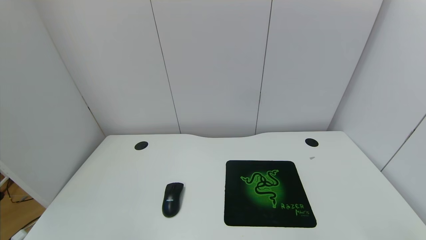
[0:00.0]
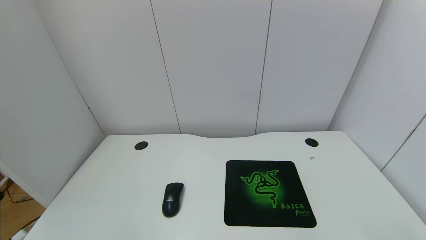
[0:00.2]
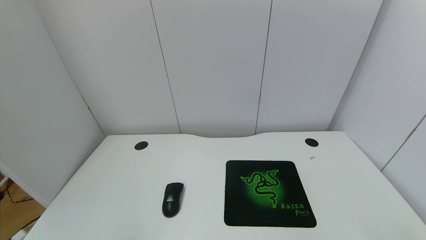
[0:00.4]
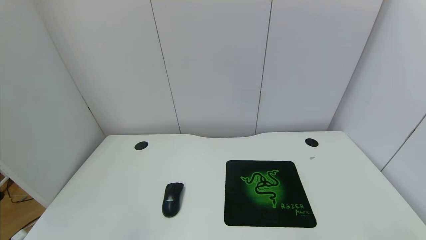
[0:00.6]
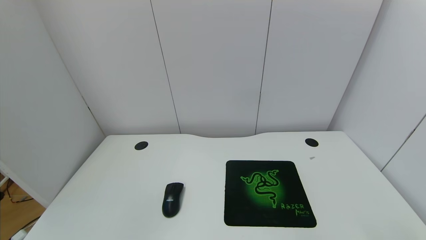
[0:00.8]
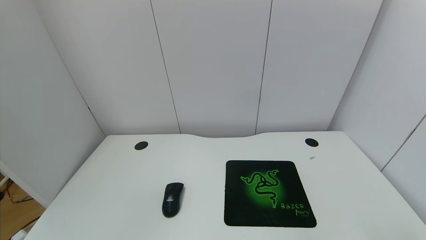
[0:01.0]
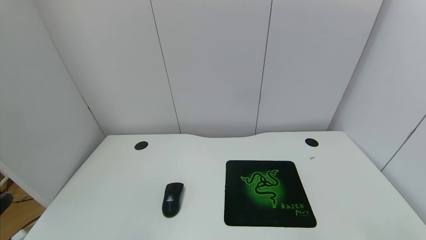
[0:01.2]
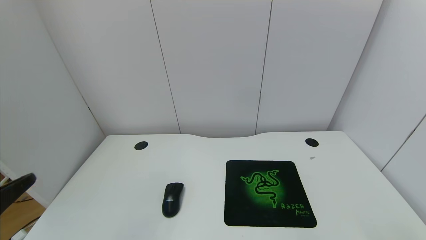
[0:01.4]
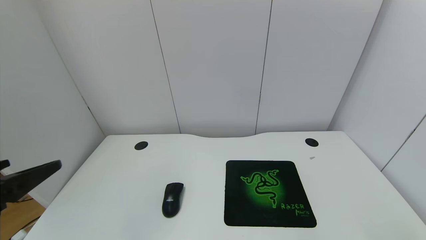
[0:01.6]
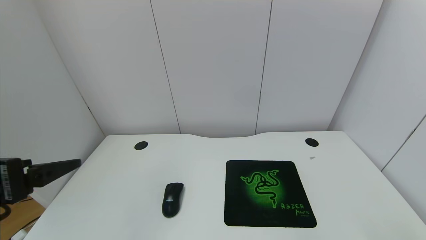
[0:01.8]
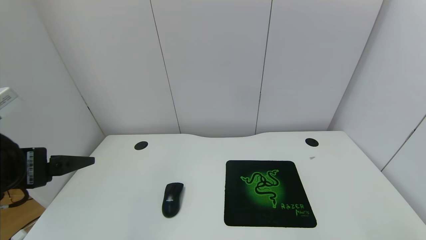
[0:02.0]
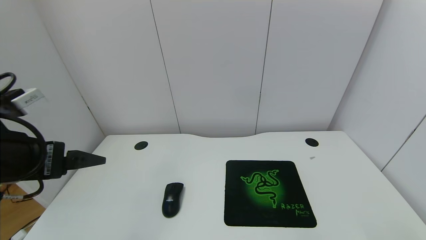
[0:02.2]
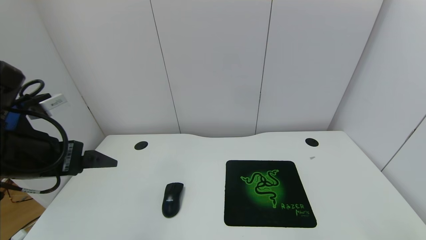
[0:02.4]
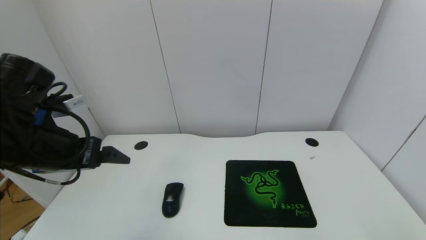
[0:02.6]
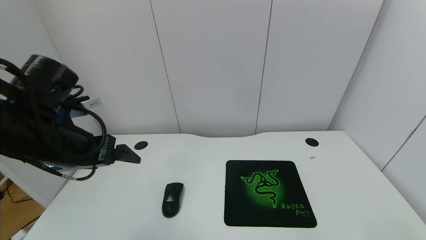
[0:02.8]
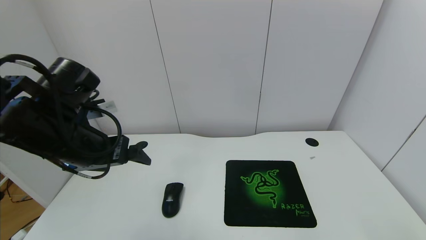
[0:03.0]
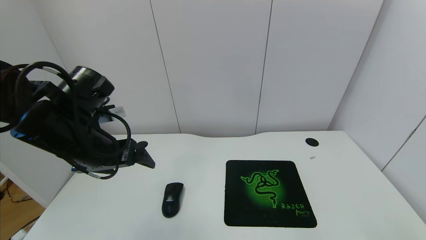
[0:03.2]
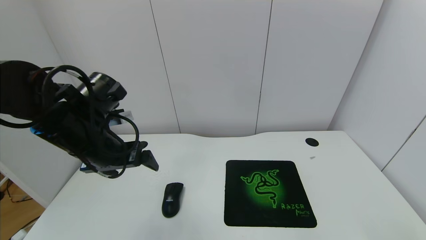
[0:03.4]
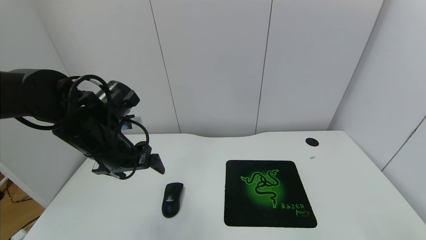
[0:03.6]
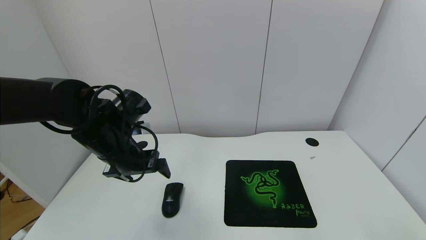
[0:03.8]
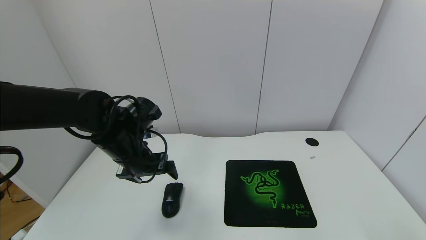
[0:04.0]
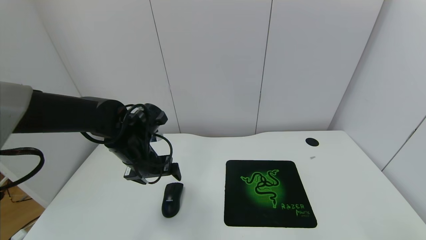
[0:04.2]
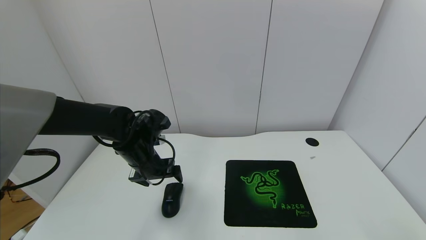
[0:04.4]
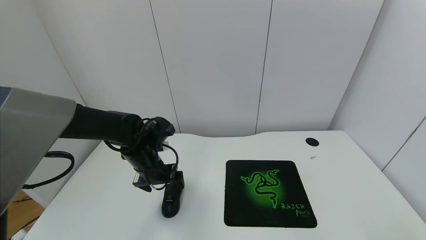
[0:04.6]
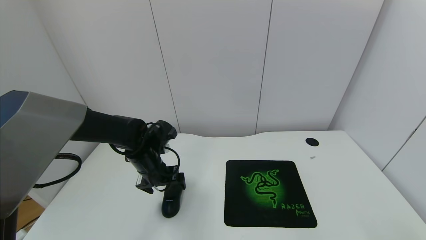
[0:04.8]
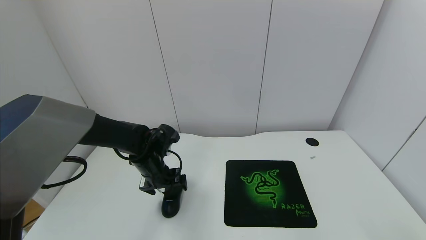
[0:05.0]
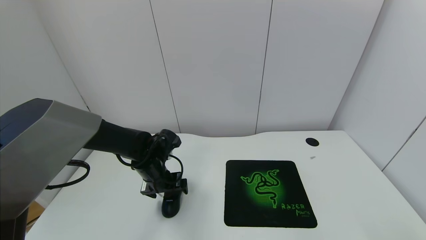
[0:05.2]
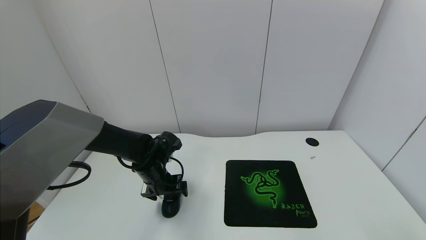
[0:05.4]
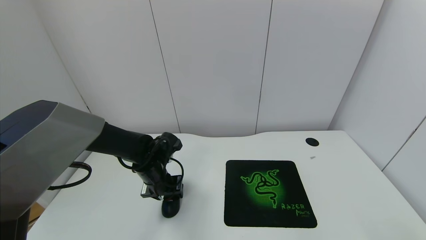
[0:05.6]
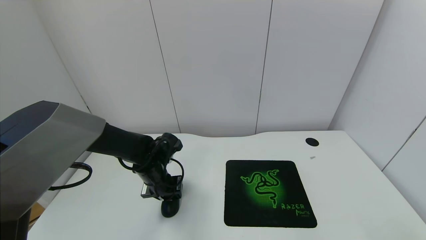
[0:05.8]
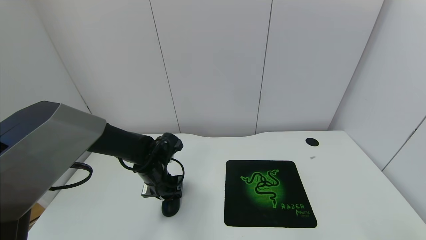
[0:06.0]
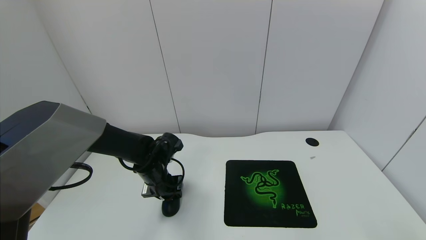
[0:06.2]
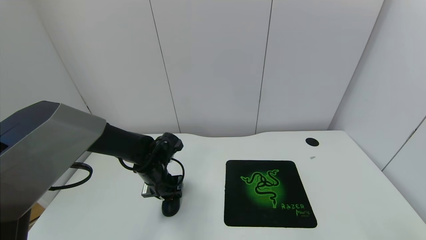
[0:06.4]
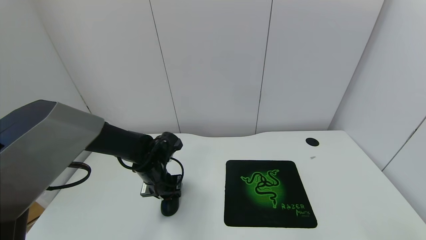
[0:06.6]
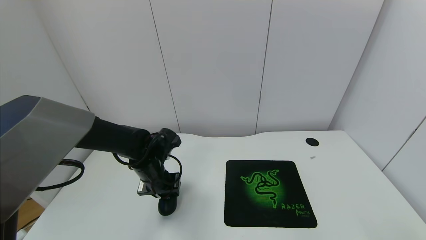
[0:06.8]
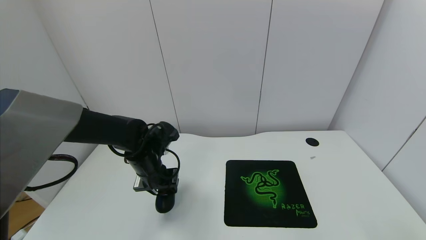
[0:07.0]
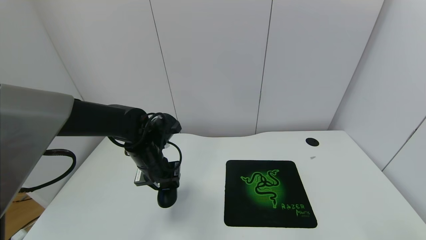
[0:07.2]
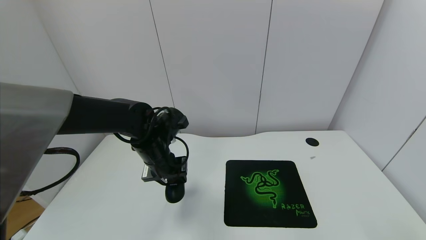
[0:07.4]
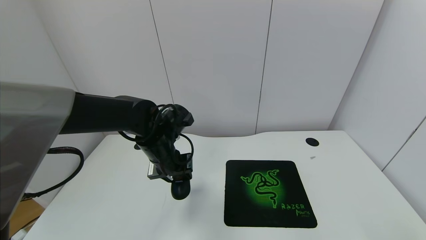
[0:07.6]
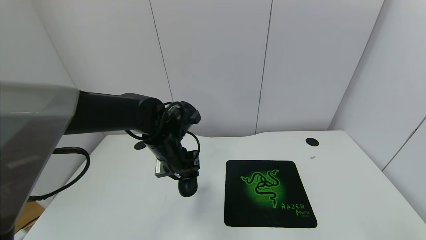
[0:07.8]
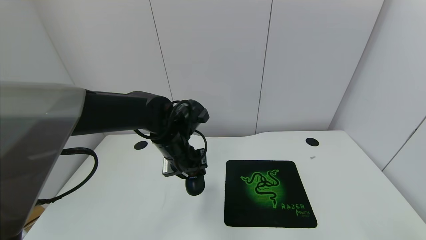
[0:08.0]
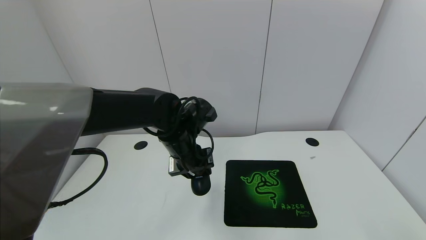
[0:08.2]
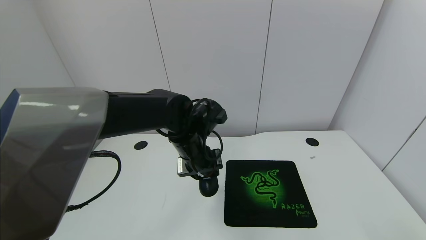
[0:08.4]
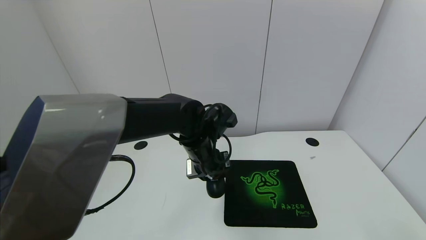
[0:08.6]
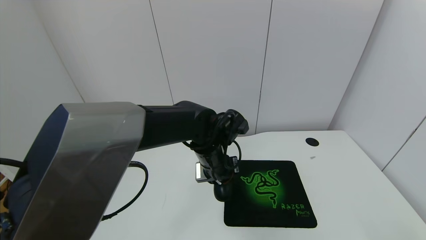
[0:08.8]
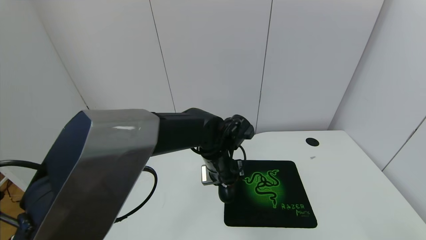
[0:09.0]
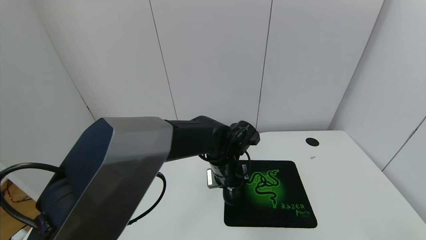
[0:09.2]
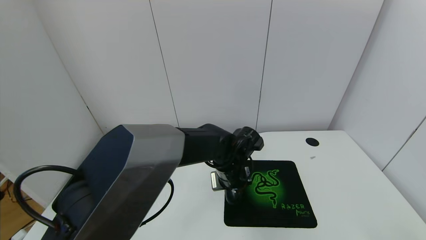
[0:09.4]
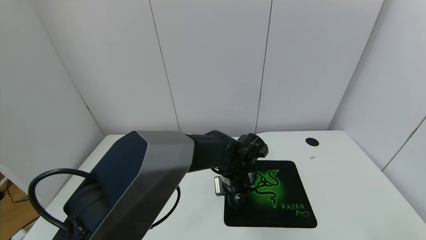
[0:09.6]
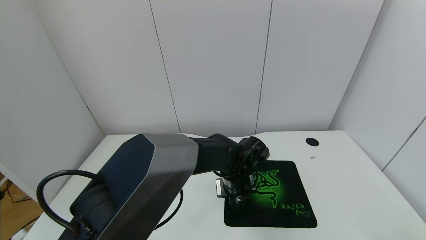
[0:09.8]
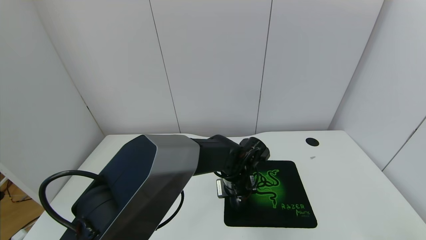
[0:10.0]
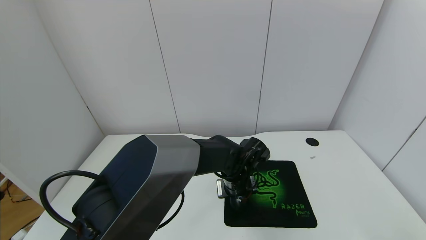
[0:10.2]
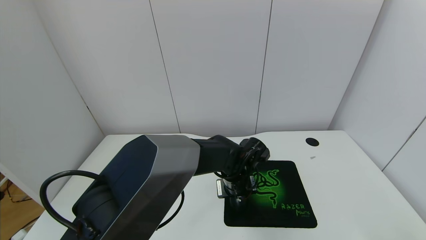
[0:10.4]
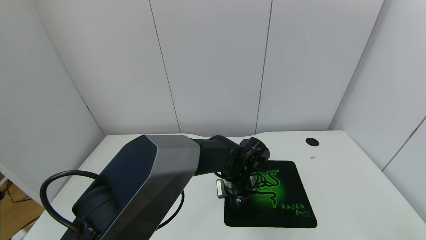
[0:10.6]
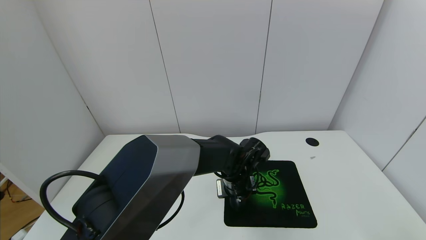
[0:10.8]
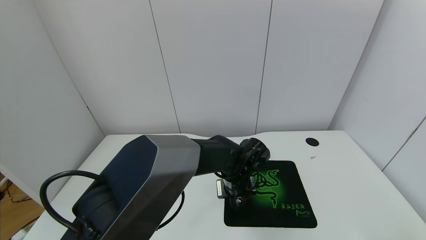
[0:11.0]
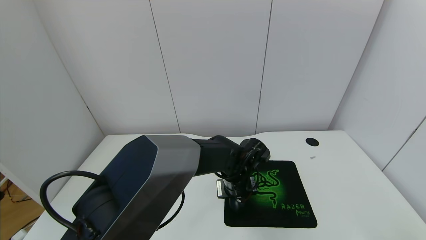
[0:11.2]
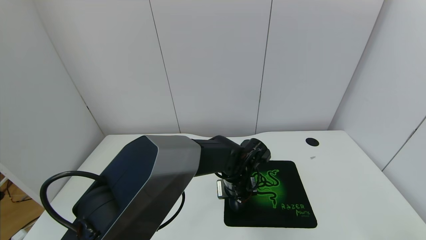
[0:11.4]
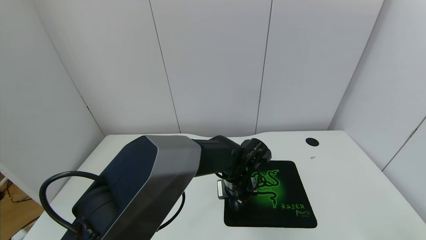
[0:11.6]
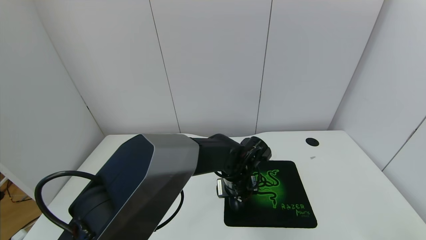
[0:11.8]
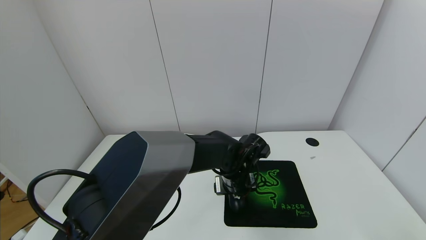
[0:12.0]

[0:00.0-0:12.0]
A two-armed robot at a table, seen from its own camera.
Task of the whole recording: use the gripper to move the mouse from one side of the table to the mouse pad on the opposite side.
Step, 0:00.0 to 0:06.2: Grasp the mouse with the left gripper.
0:00.0 to 0:01.6: The left gripper is displaced upward and forward by roughly 20 cm.
0:01.6 to 0:03.0: The left gripper shifts some 15 cm forward.
0:03.0 to 0:04.4: The left gripper goes about 15 cm downward and forward.
0:04.4 to 0:06.0: The left gripper is displaced downward by approximately 5 cm, and closes its fingers.
0:06.0 to 0:07.6: The left gripper is displaced upward by roughly 10 cm.
0:07.6 to 0:09.0: The left gripper travels to the right by approximately 15 cm.
0:09.0 to 0:10.4: The left gripper shifts approximately 5 cm downward.
0:10.4 to 0:12.0: The left gripper opens.

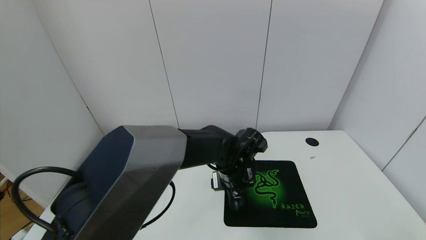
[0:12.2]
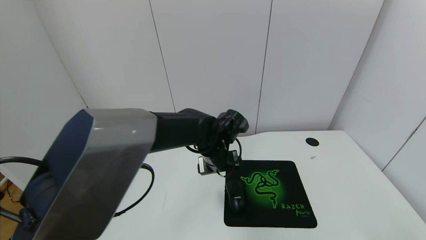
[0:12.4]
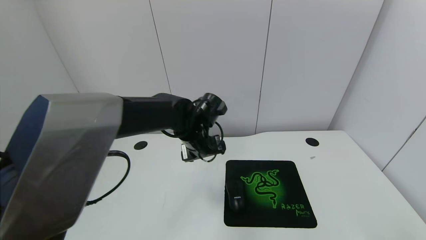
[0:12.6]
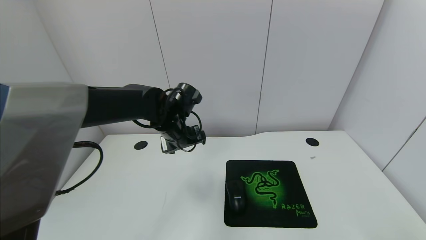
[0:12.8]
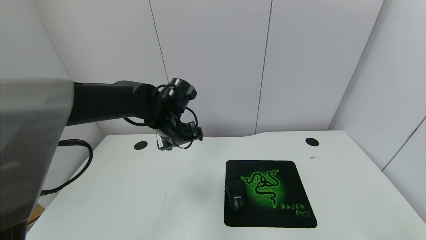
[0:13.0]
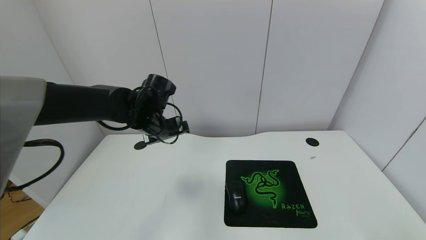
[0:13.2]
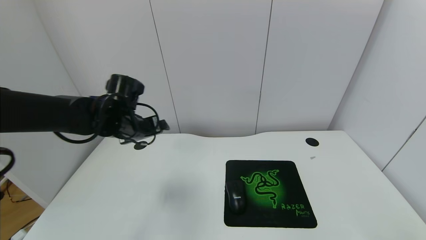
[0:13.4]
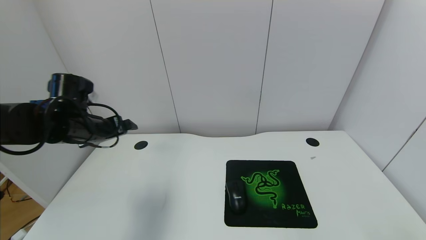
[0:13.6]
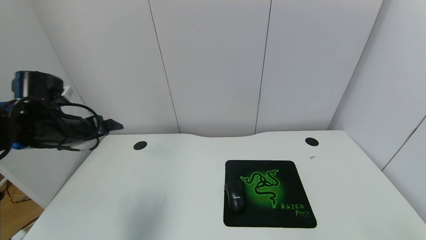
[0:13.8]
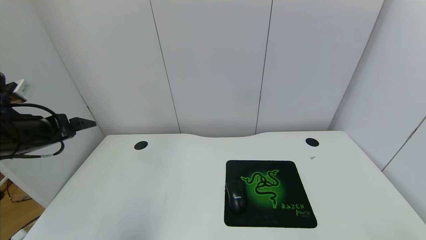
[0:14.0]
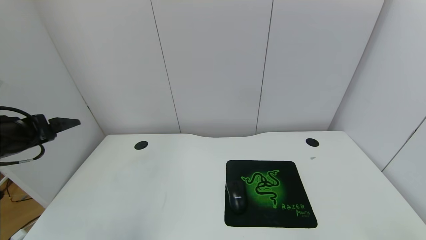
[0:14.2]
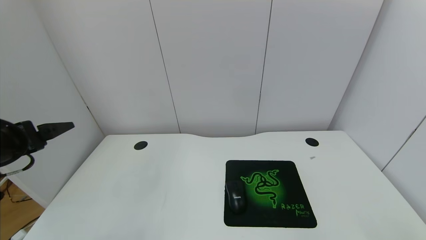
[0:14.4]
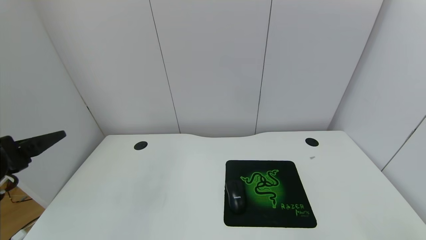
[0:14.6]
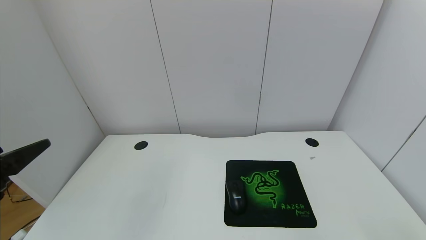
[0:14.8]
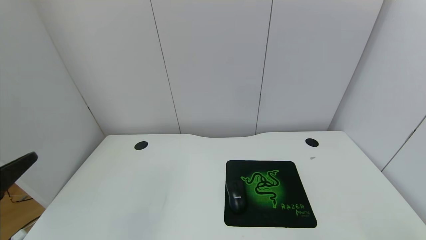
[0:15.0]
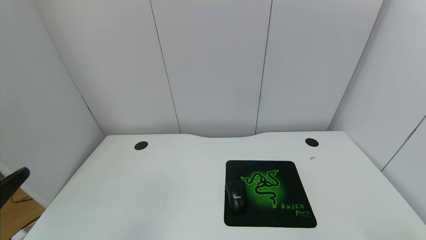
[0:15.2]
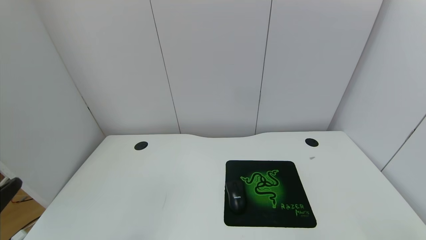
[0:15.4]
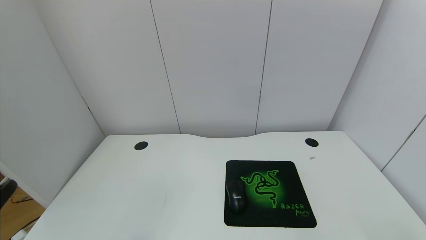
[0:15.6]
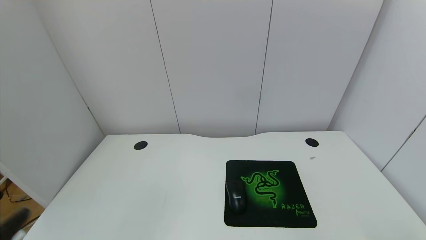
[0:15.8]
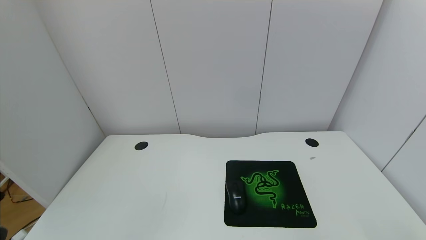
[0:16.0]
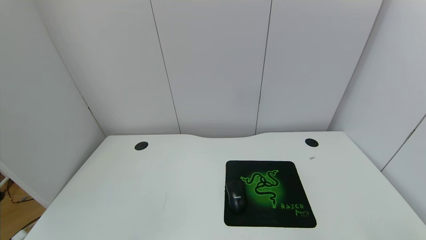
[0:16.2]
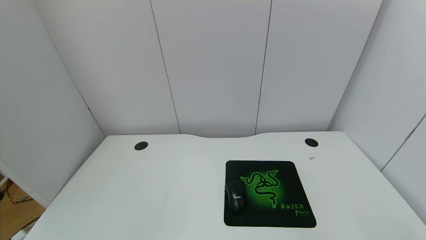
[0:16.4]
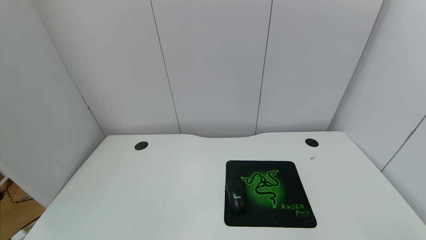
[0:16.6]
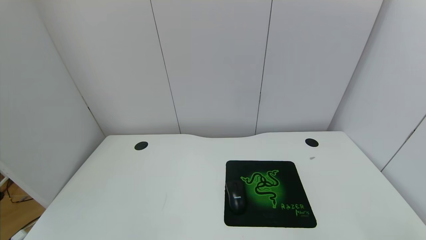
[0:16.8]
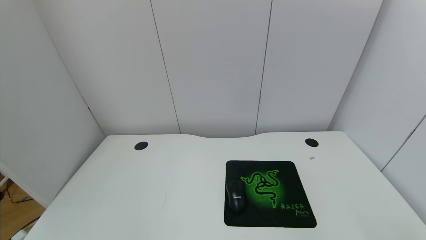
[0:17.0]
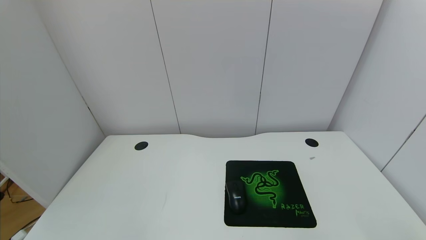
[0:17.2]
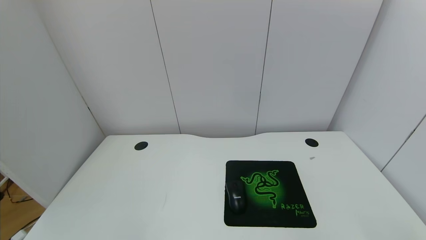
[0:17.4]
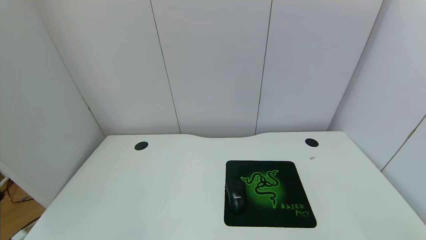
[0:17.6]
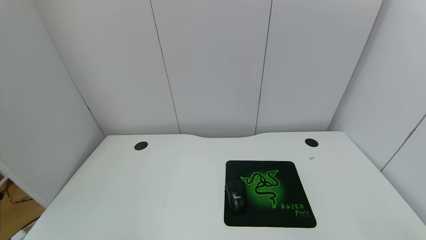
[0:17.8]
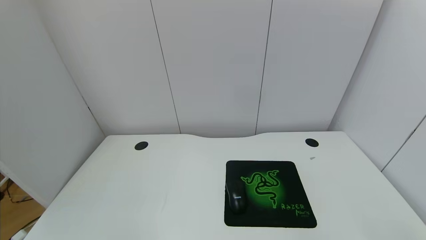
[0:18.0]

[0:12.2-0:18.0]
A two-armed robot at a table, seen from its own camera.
Task of the whole recording: use the gripper to move the mouse from one side of the table to the mouse pad on the opposite side.
0:12.2 to 0:13.6: The left gripper shifts some 15 cm to the left and upward.
0:13.6 to 0:15.0: The left gripper heads backward and to the left, covering approximately 35 cm.
0:15.0 to 0:16.6: The left gripper travels backward by approximately 10 cm.
